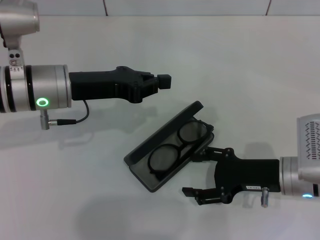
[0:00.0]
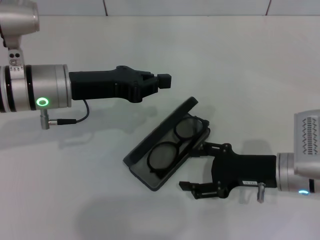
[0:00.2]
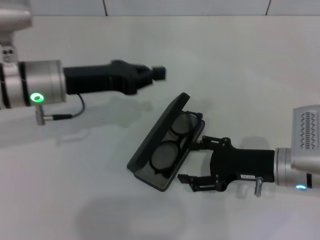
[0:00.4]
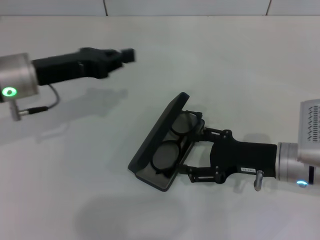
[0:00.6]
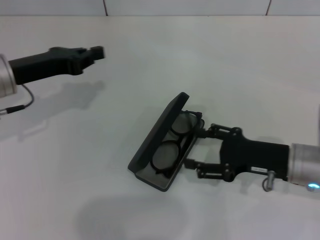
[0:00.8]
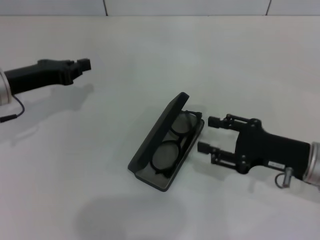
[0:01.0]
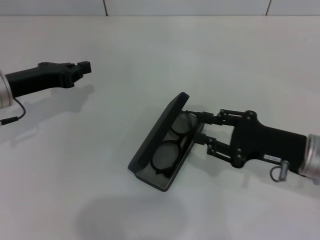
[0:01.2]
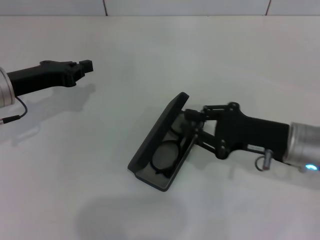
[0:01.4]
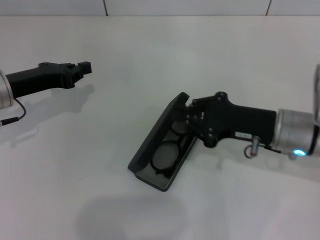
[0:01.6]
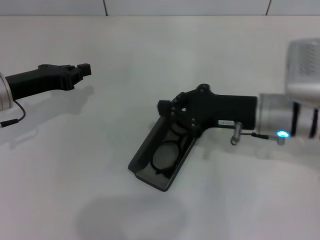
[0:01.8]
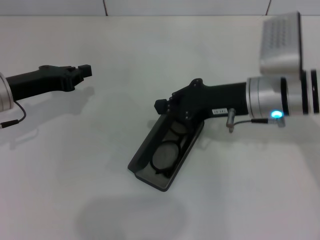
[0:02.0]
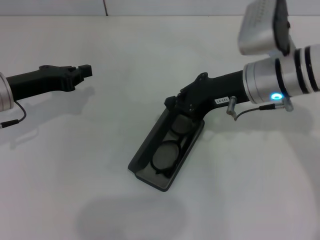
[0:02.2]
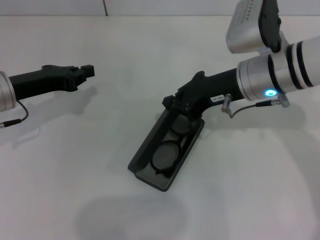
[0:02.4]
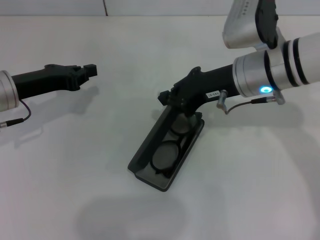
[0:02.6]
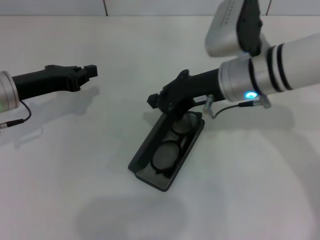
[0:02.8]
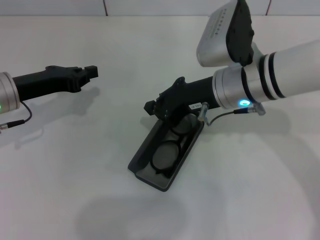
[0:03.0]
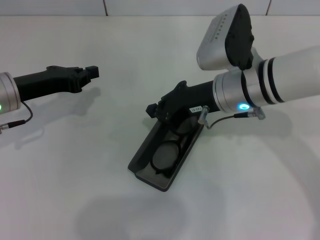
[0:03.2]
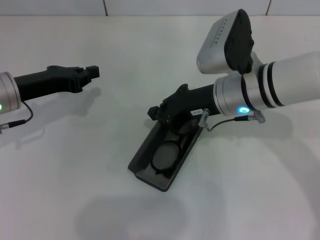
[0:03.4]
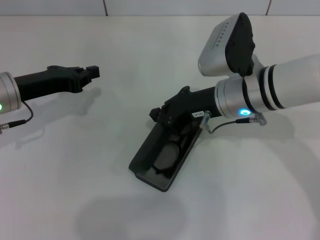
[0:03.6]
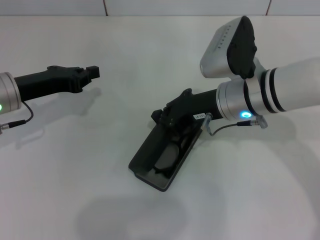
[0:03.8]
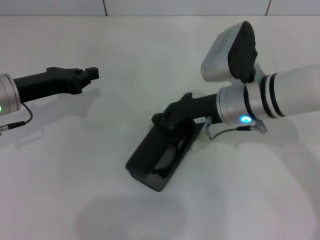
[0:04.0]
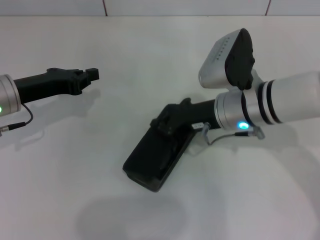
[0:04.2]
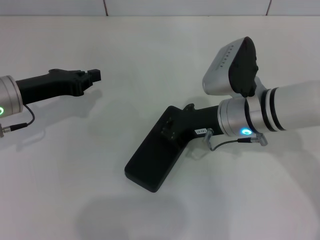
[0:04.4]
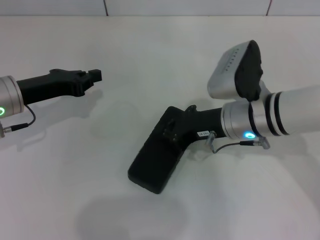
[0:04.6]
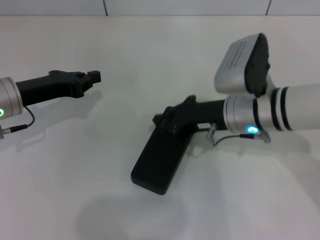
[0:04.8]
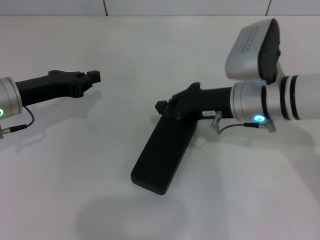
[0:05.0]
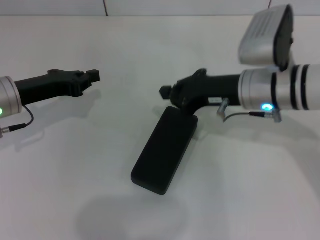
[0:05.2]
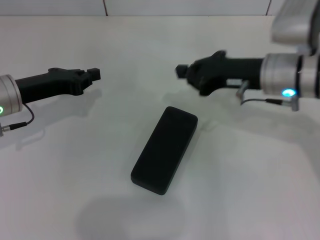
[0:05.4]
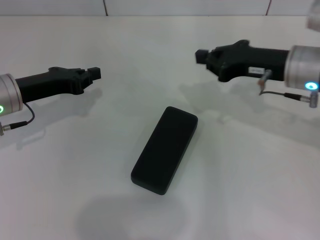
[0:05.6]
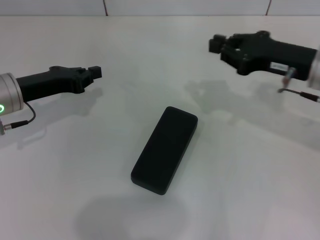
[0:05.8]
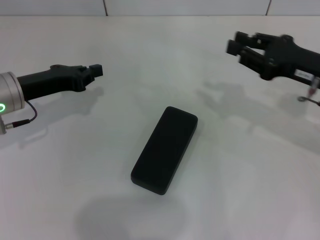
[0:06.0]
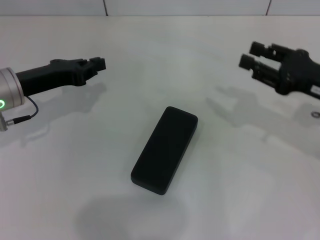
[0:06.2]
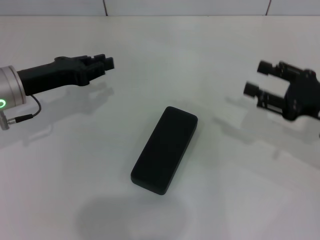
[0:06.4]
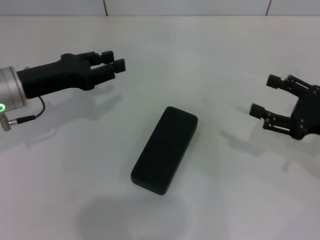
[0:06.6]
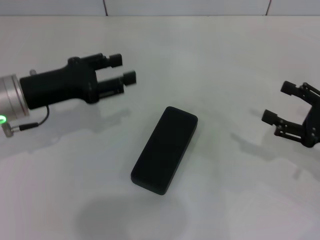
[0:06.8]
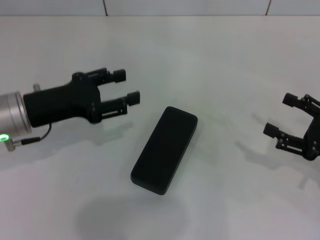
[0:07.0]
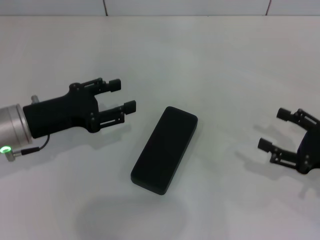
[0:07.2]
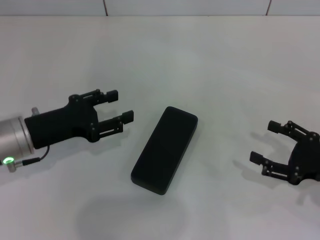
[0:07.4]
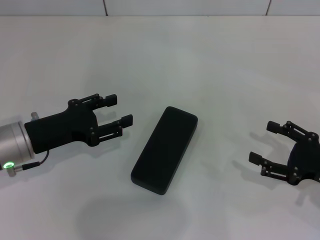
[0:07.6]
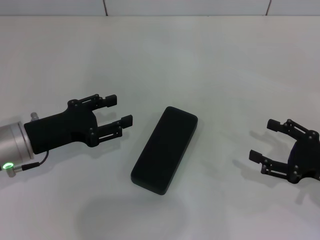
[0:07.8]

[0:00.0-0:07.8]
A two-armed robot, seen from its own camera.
Step, 0:00.0 to 0:04.8: Close the glasses case with your left hand.
0:00.0 to 0:01.6: The left gripper travels to the left by some 10 cm, while the right gripper is displaced upward by roughly 5 cm, and closes.
0:01.6 to 0:03.2: The right gripper shifts about 10 cm to the left and upward.
0:03.2 to 0:04.6: There are only small adjustments of the grippers.
0:04.6 to 0:06.2: The right gripper heads to the right, covering some 15 cm, and opens up.
0:06.2 to 0:07.8: The left gripper is displaced backward by approximately 5 cm, and opens up; the right gripper is displaced downward and backward by some 10 cm, and opens.

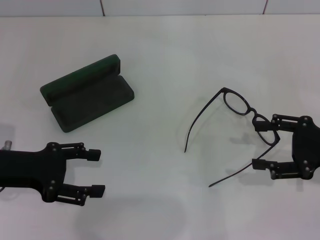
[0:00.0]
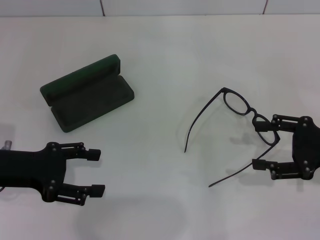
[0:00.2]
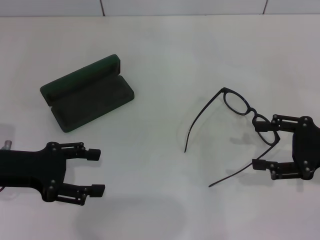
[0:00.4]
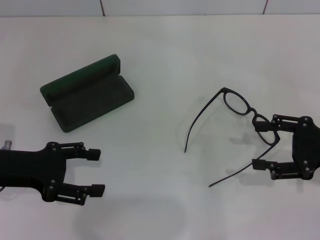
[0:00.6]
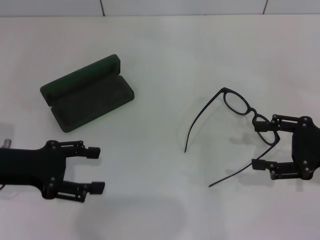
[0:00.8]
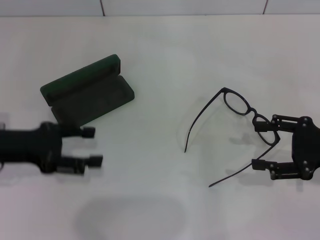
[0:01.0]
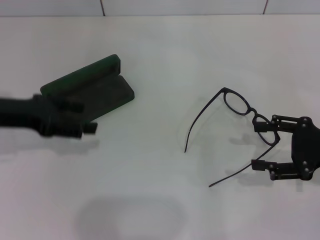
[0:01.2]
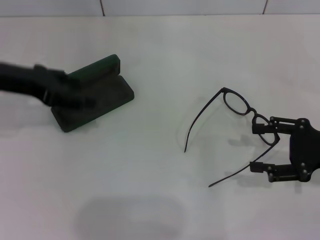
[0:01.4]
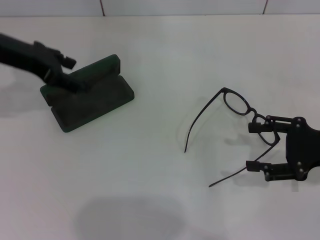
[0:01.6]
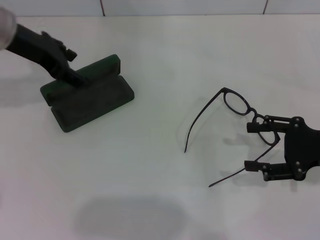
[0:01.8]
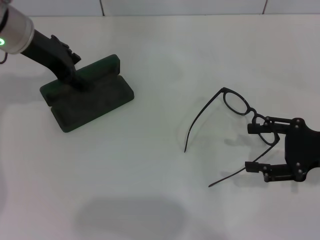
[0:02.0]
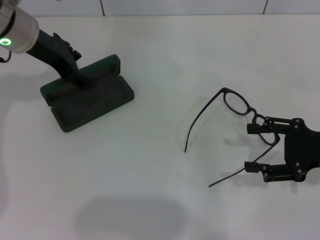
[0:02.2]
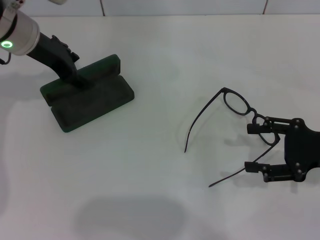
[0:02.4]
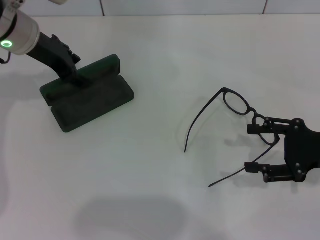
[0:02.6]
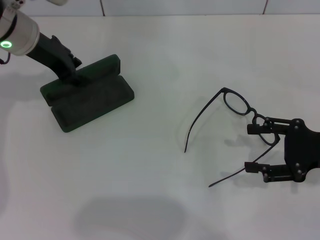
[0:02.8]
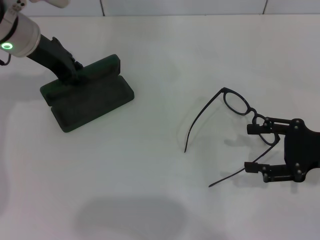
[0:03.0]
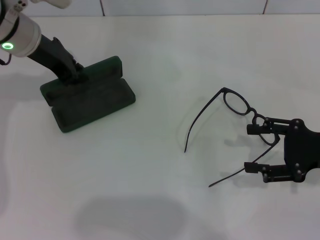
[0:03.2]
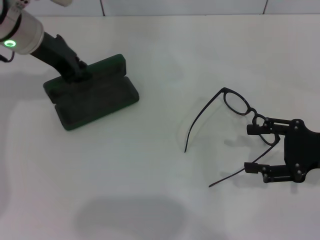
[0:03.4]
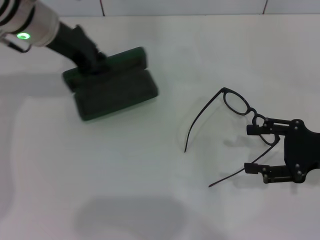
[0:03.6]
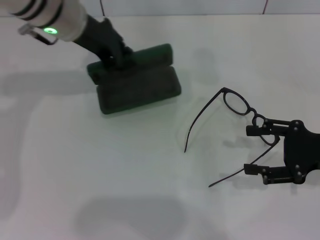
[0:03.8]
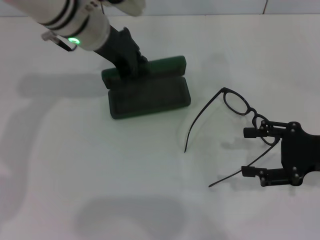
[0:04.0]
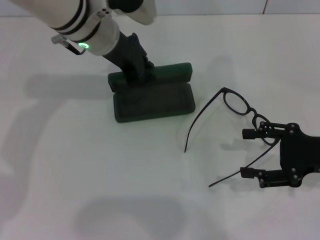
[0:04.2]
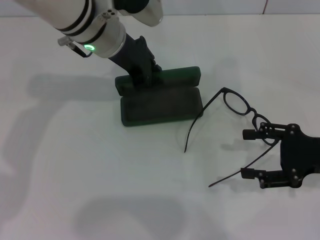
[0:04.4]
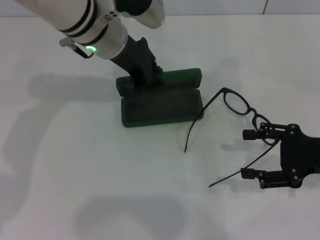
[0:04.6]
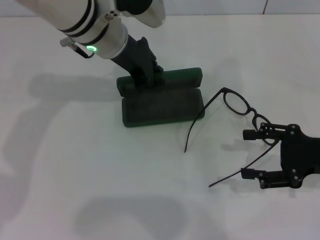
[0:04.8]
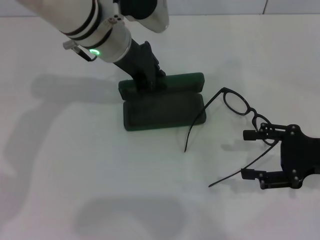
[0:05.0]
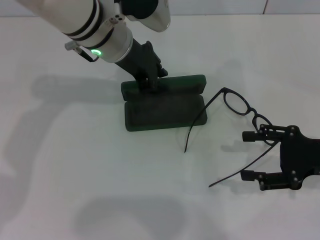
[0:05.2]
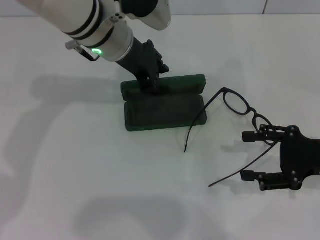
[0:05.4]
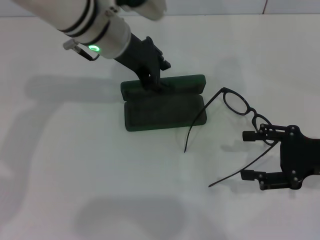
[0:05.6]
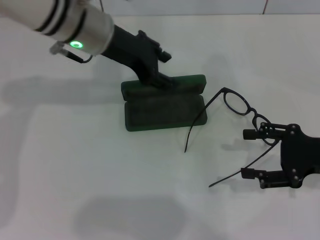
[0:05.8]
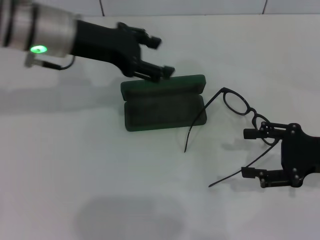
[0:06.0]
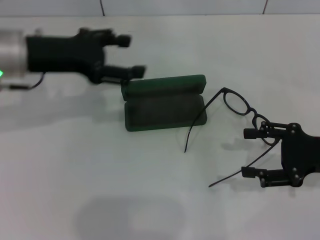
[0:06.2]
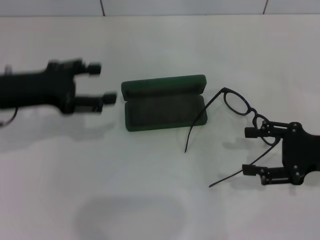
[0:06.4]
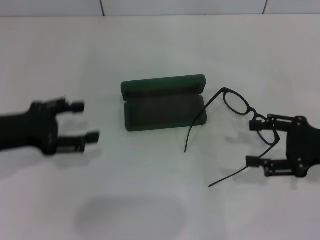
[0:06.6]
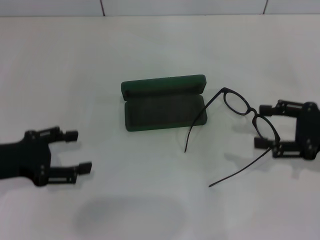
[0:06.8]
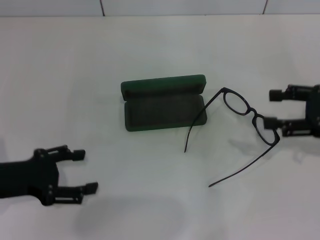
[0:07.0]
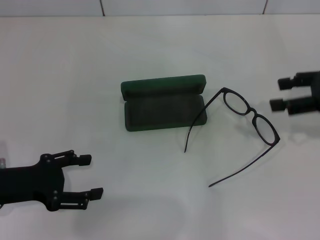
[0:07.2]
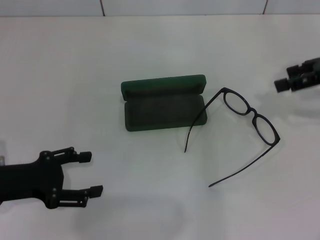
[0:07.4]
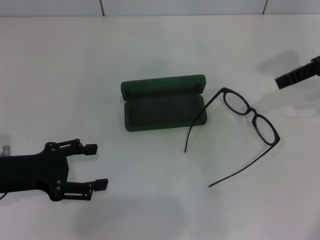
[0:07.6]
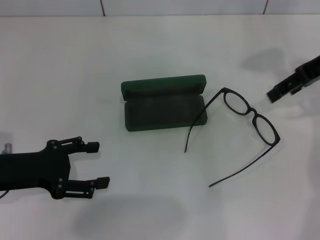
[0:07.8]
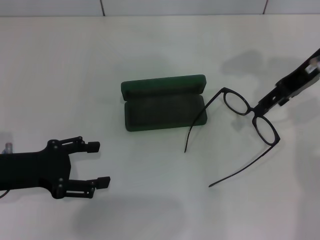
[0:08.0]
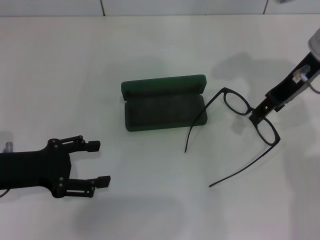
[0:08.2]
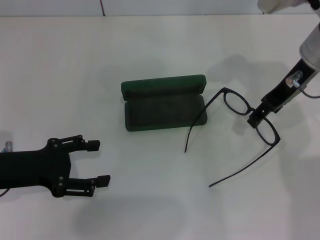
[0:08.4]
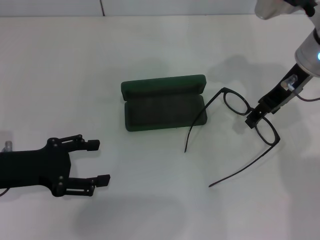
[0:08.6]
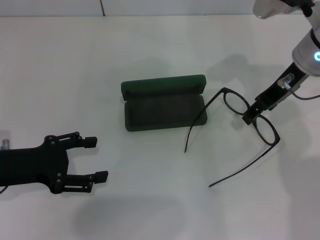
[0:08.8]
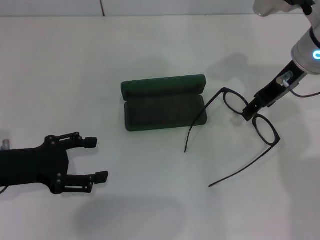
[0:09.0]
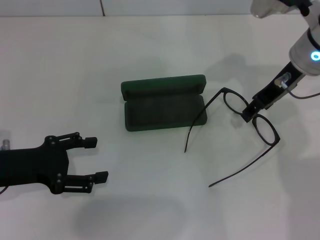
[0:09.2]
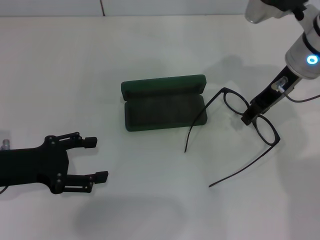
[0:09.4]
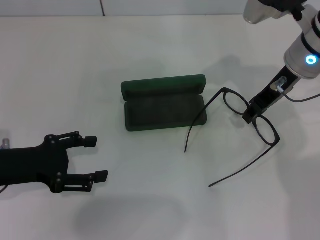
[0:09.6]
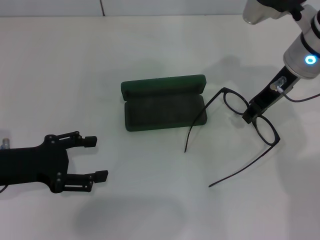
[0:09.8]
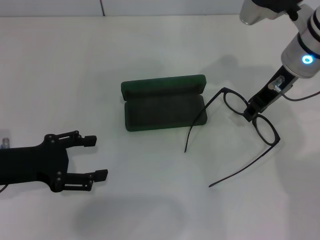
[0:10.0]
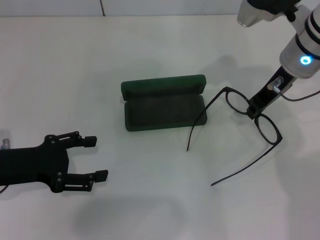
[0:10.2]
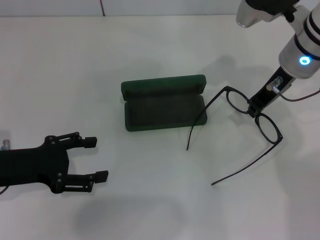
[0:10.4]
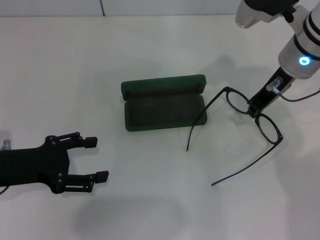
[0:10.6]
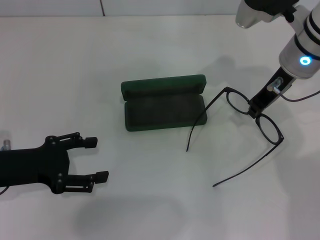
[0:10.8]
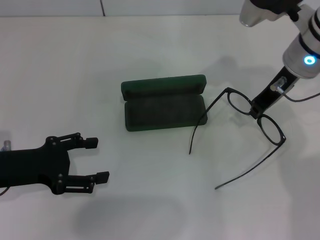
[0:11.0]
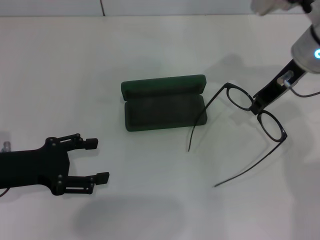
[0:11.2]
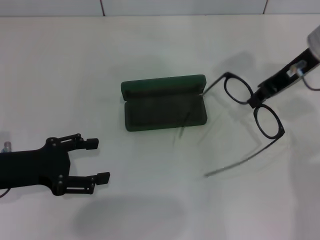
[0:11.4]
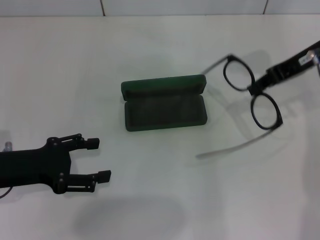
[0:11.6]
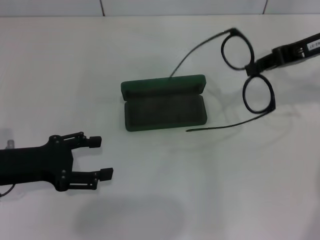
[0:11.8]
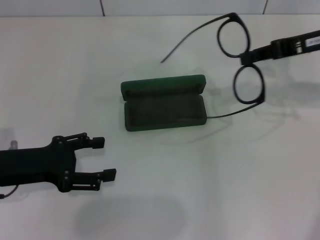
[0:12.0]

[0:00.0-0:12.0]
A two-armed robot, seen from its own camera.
Step, 0:00.0 to 0:03.0: Grab the glasses case with your left hand.
Step, 0:03.2 to 0:05.4: Place the glasses case in the center of the table with your left hand.
Step, 0:05.6 to 0:10.4: Grab the eyeglass frame with your right hand.
0:00.0 to 0:01.6: The left gripper is displaced forward and upward by roughly 15 cm.
0:01.6 to 0:03.0: The left gripper moves approximately 5 cm, and closes.
0:03.0 to 0:04.4: The left gripper moves to the right, approximately 10 cm.
0:04.4 to 0:06.0: The left gripper moves to the left, some 10 cm, and opens its fingers.
0:06.0 to 0:07.6: The right gripper moves upward and forward, roughly 20 cm; the left gripper goes approximately 20 cm backward, downward and to the left.
0:07.6 to 0:09.0: The right gripper shifts roughly 10 cm to the left and downward.
0:09.0 to 0:10.4: The right gripper closes up.
0:10.4 to 0:12.0: The right gripper goes roughly 10 cm to the right.

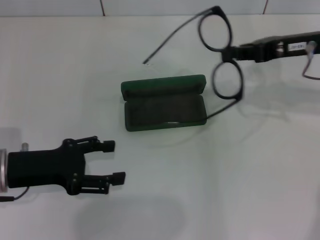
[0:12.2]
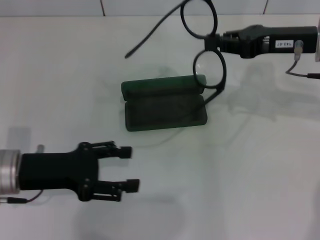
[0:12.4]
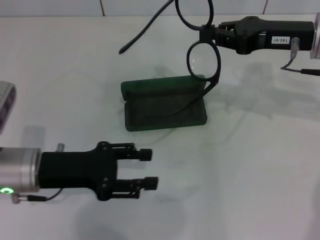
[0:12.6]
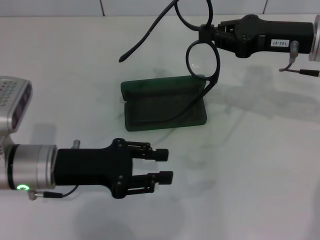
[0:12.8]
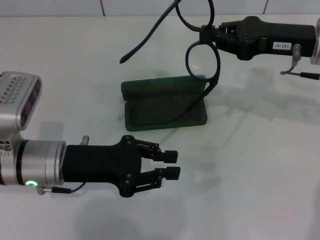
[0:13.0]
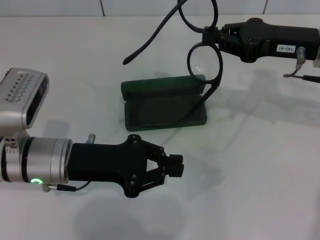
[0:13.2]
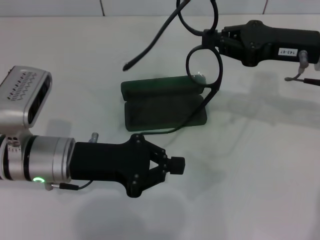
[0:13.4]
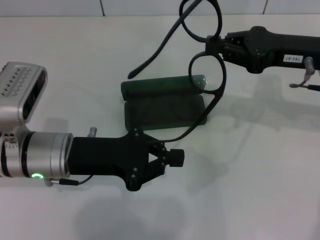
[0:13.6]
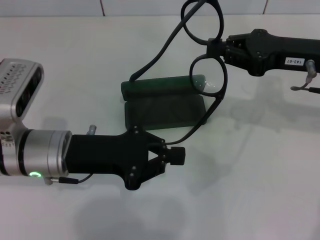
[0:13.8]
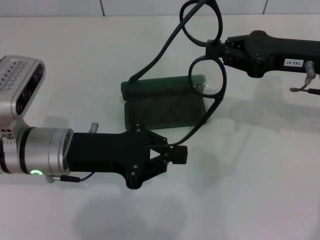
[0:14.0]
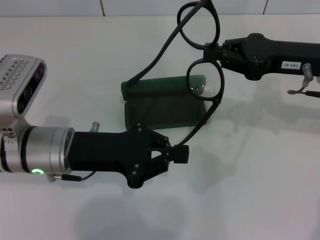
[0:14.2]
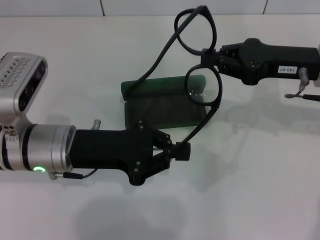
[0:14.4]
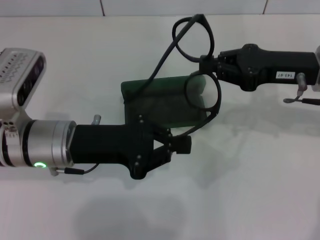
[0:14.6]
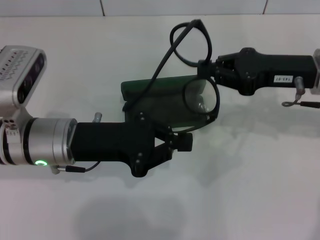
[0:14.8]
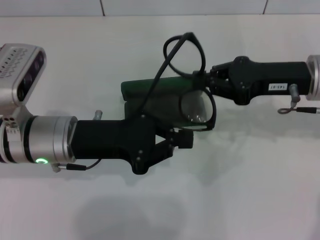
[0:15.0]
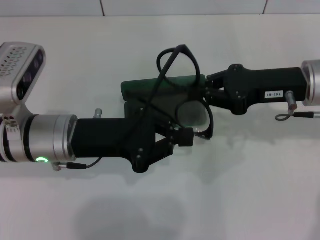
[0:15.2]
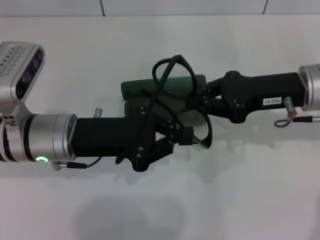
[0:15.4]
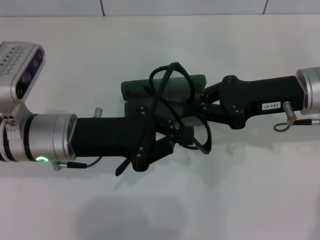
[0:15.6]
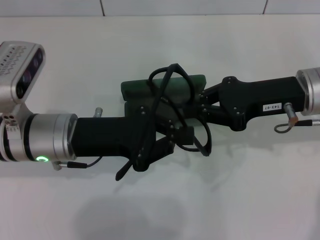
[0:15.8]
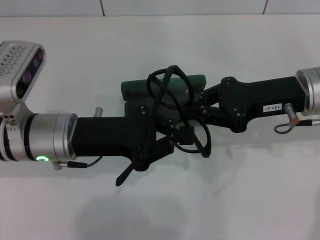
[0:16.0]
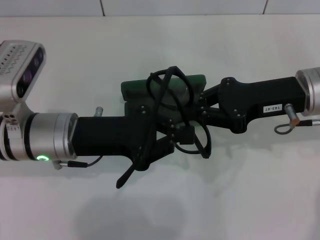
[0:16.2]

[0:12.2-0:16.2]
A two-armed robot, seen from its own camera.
0:12.2 to 0:13.6: The left gripper goes some 10 cm to the right, and closes its fingers.
